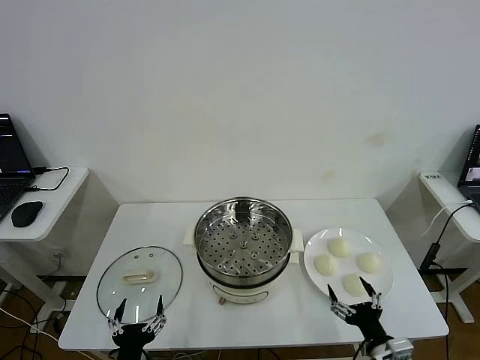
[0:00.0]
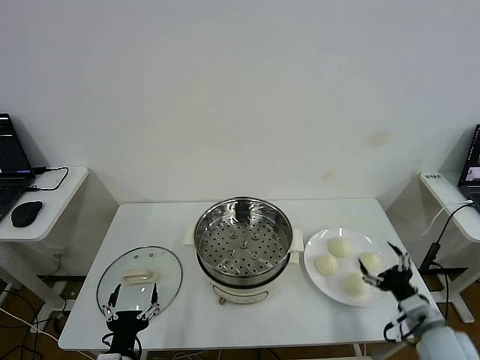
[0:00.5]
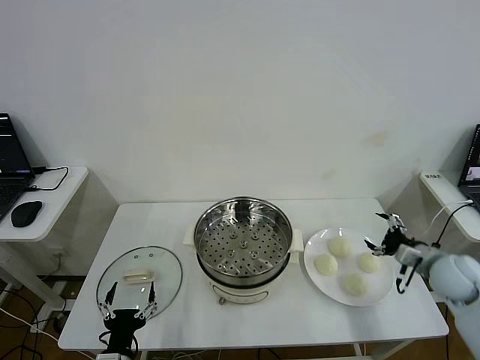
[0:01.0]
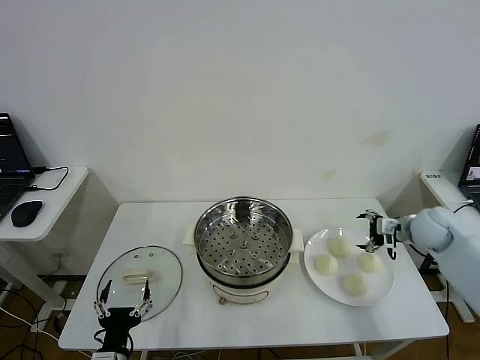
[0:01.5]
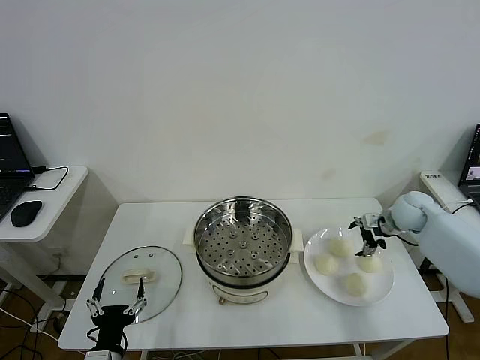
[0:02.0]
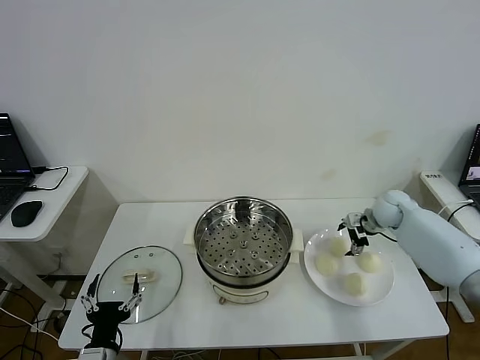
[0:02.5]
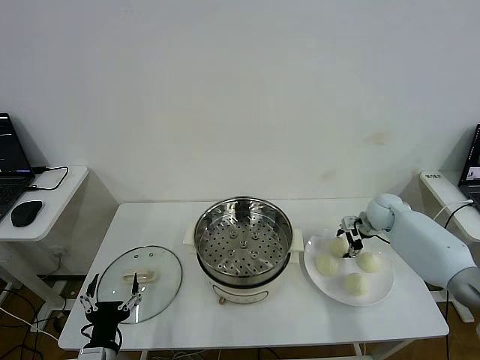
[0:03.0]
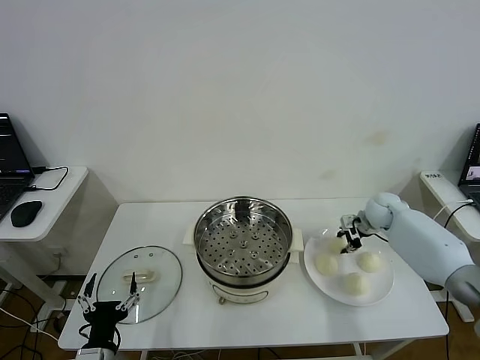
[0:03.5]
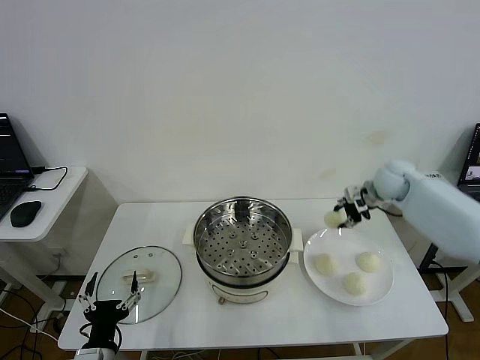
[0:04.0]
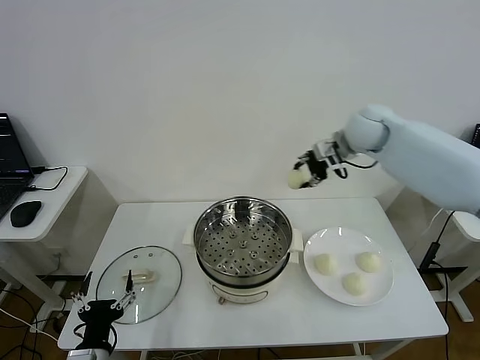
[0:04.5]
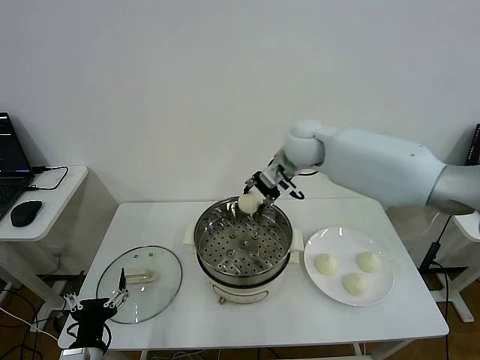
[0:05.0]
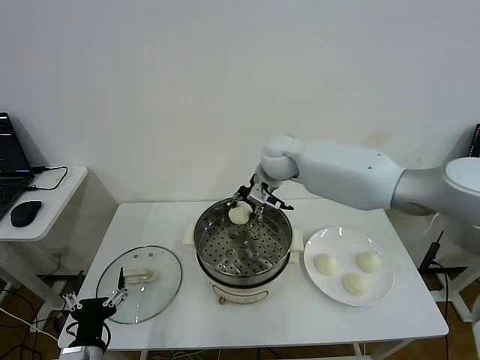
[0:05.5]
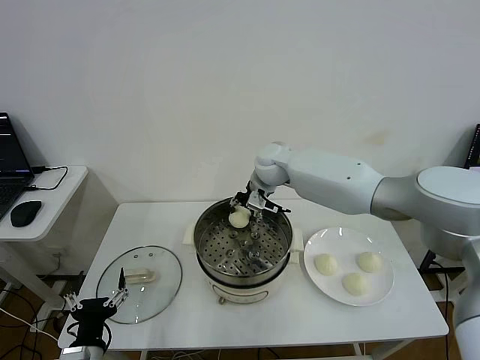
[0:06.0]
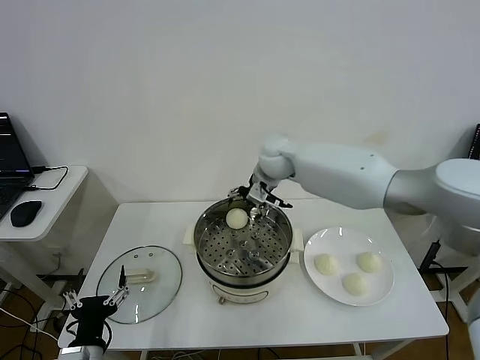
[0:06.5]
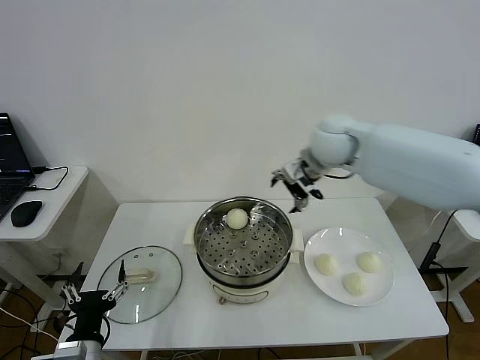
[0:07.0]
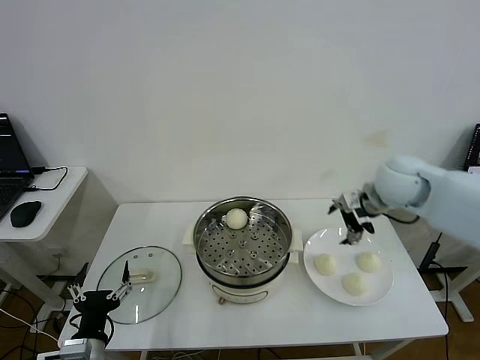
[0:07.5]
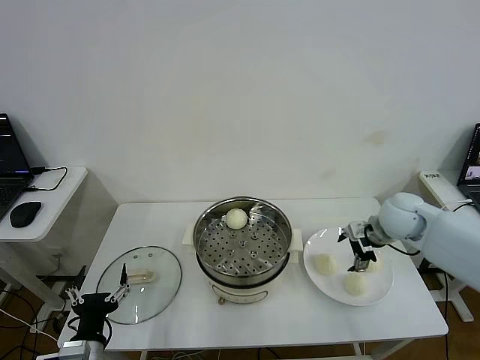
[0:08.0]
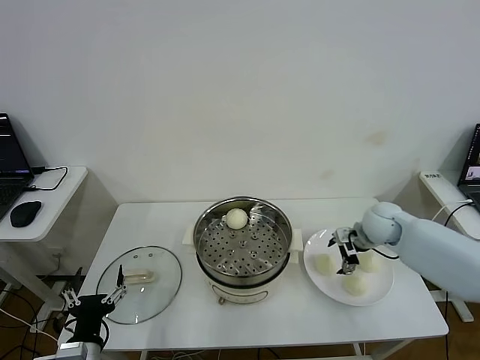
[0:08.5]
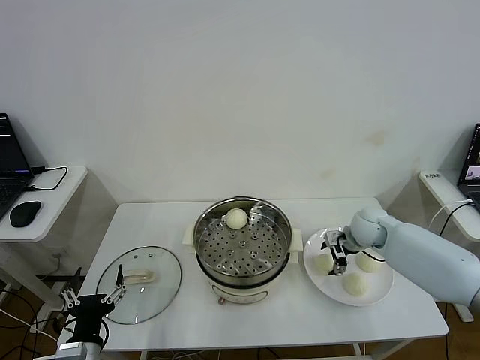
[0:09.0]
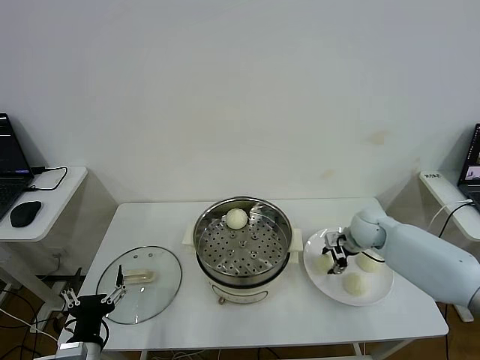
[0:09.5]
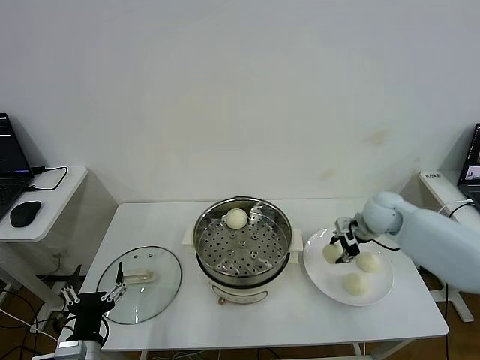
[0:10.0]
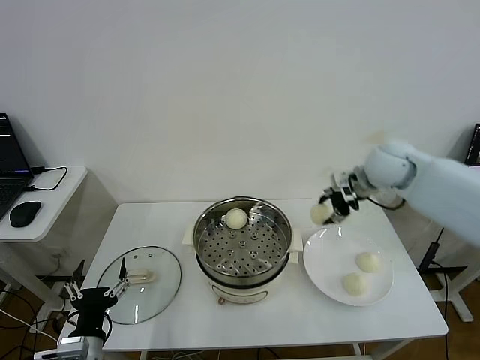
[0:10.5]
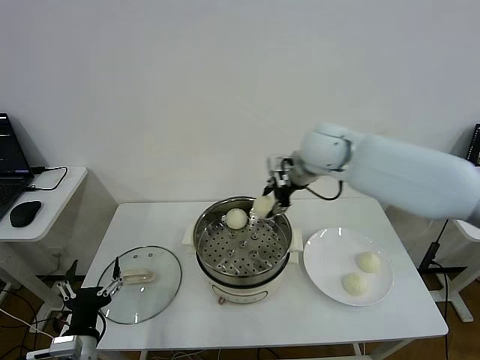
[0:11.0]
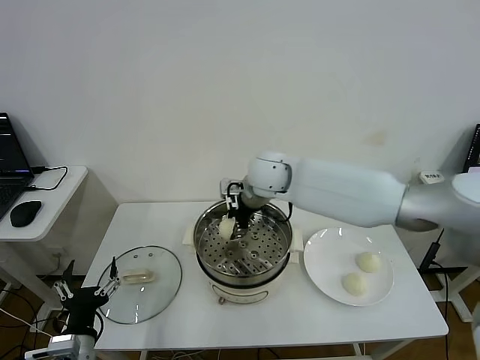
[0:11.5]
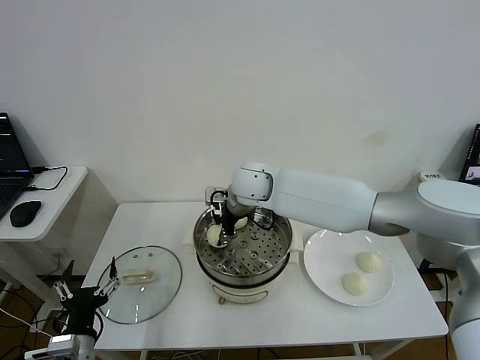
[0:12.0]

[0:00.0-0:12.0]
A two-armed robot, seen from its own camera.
Step, 0.0 to 3.0 s: Grasp the baozi in the plate with right gripper.
Step, 3.5 to 6.0 s: Place the baozi on the steamer with right gripper.
Step, 6.5 to 9.0 s: Grasp the baozi in the plate with right gripper.
2.0 to 4.0 s: The right gripper moves upward and to the left, about 15 cm, and closes.
4.0 to 6.0 s: The right gripper shifts approximately 30 cm to the left, and opens.
6.0 to 8.0 s: The right gripper goes some 30 cm to the right and backward, and opens up.
8.0 to 10.0 s: The right gripper reaches some 5 cm downward, then returns, and closes.
10.0 to 12.0 s: The right gripper moves to the left, some 30 cm.

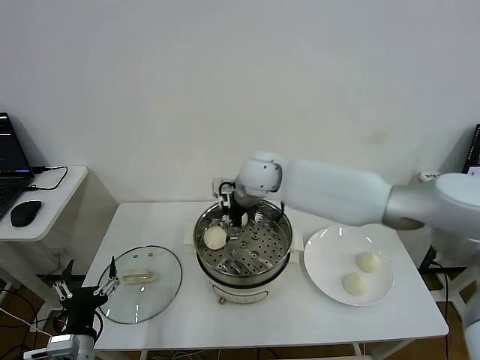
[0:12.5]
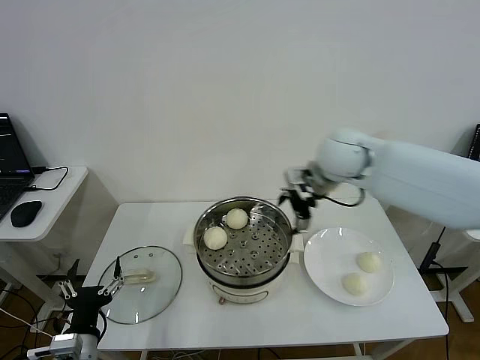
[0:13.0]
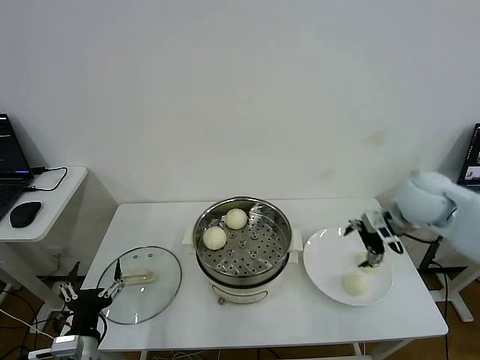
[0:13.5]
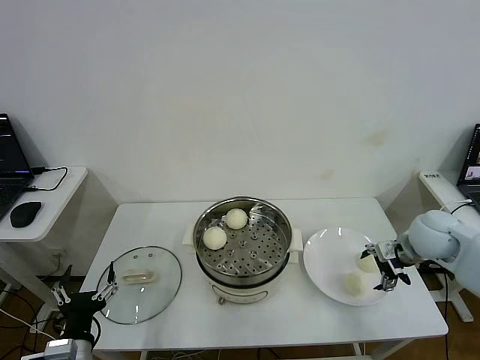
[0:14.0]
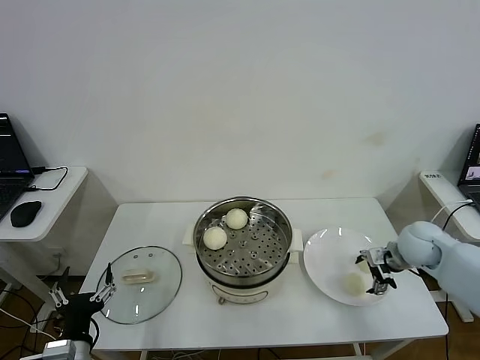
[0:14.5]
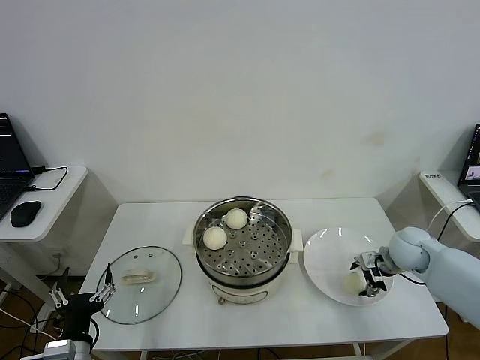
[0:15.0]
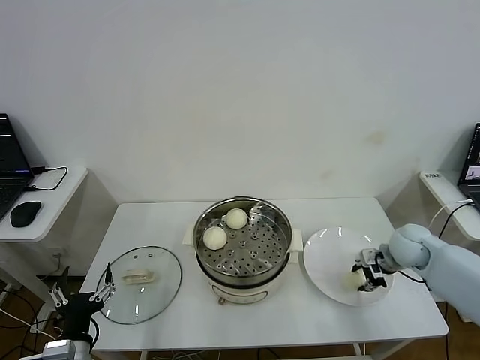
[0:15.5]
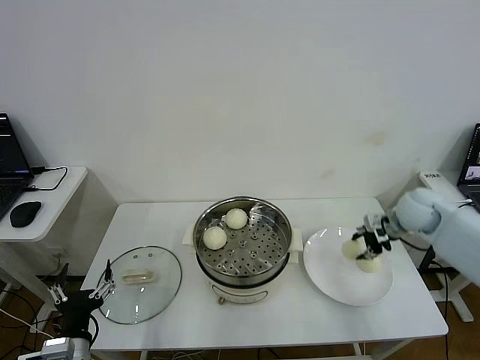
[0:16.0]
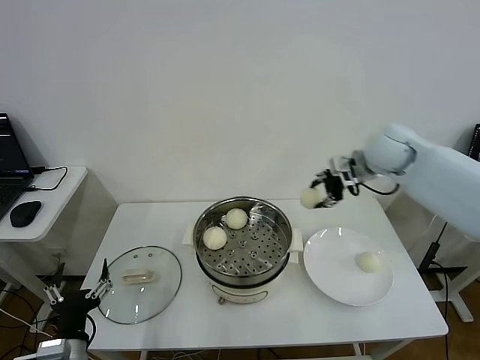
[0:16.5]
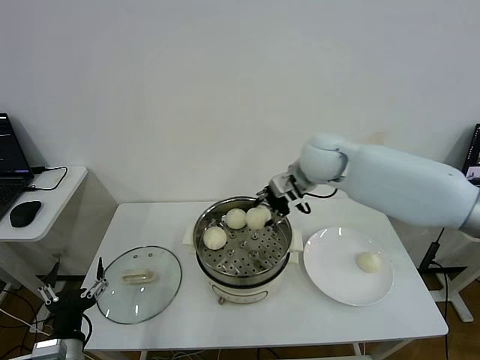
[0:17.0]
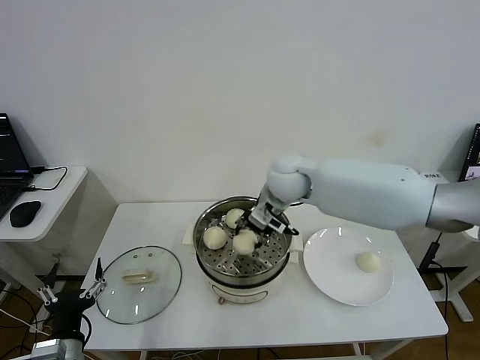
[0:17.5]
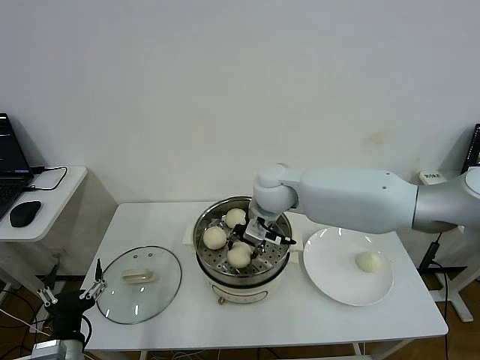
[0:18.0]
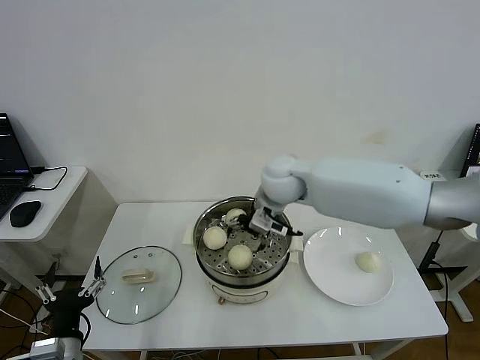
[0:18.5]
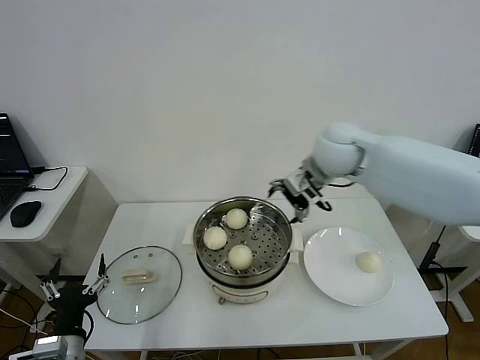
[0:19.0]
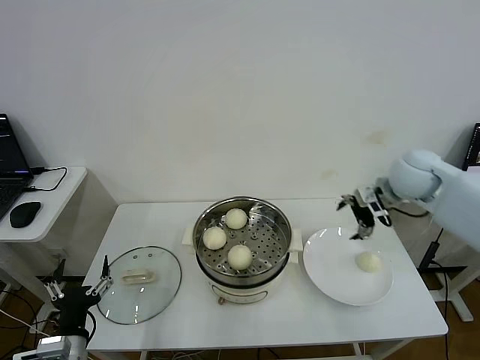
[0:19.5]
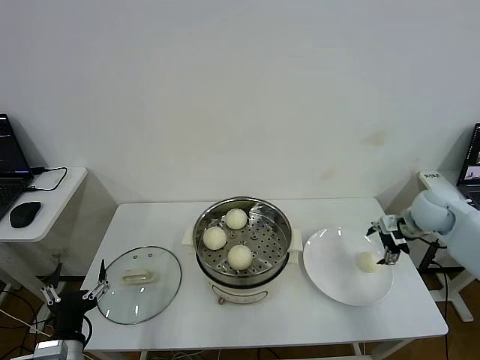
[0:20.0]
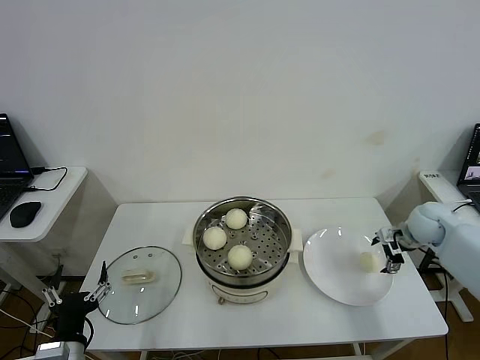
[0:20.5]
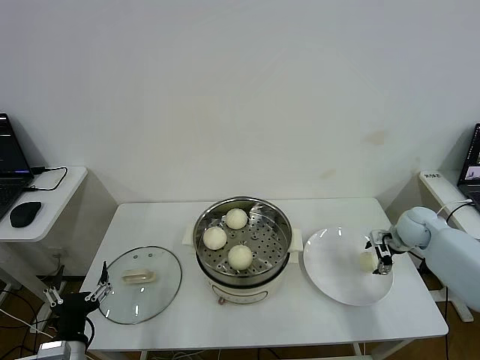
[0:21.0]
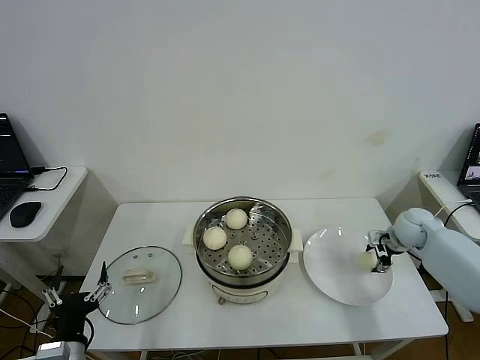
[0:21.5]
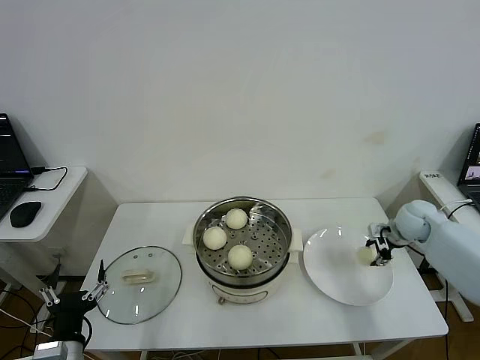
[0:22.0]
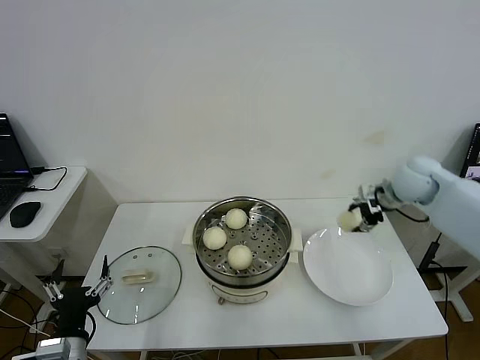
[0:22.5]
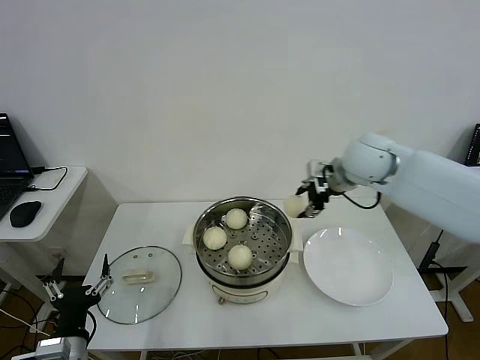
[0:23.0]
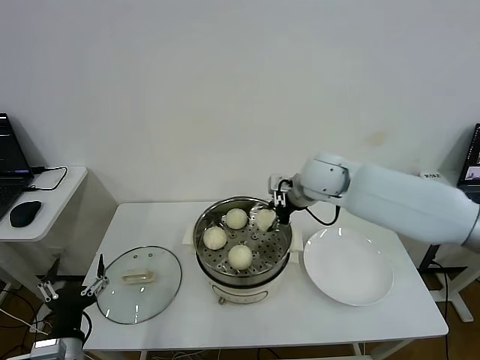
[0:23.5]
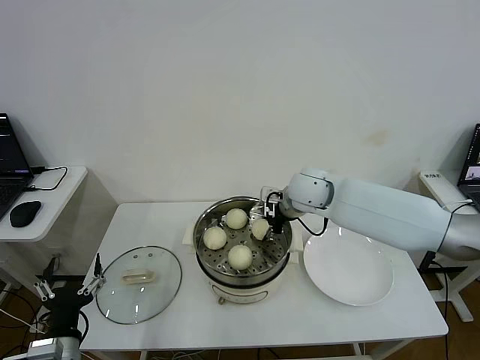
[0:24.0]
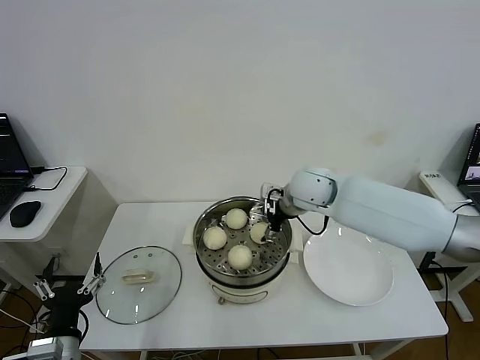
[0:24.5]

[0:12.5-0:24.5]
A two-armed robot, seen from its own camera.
Step, 12.5 to 15.0 s: Grasp the baozi in the plate with right gripper.
Step, 15.5 to 18.0 s: Place the baozi on the steamer with right gripper.
Step, 18.5 to 21.5 s: Grasp the baozi in the plate with right gripper.
Step, 22.0 to 24.5 s: Place the baozi on the steamer with right gripper.
12.5 to 14.5 s: The right gripper goes about 40 cm to the right and downward.
14.5 to 16.5 s: The right gripper heads upward, to the left and forward, covering approximately 25 cm, and closes.
16.5 to 18.5 s: The right gripper travels to the left by approximately 20 cm, and opens up.
18.5 to 20.5 s: The right gripper heads to the right, covering approximately 35 cm.
20.5 to 22.5 s: The right gripper heads upward and to the left, covering some 15 cm, and closes its fingers.
22.5 to 24.5 s: The right gripper moves to the left, about 20 cm, and opens up.

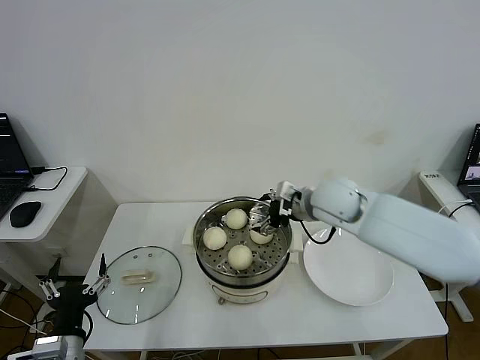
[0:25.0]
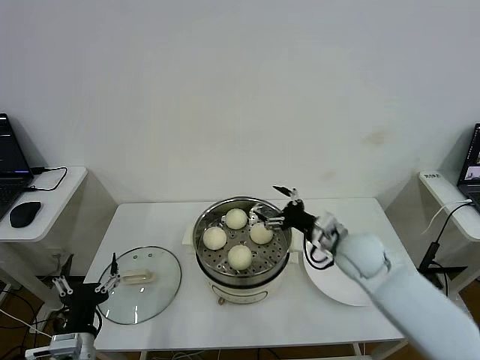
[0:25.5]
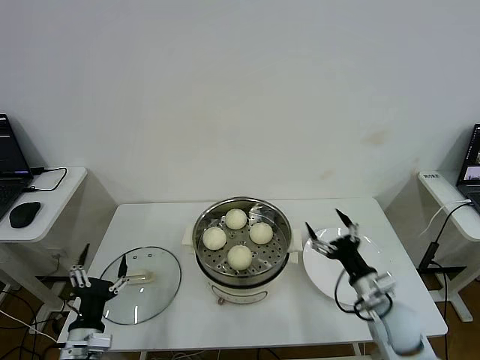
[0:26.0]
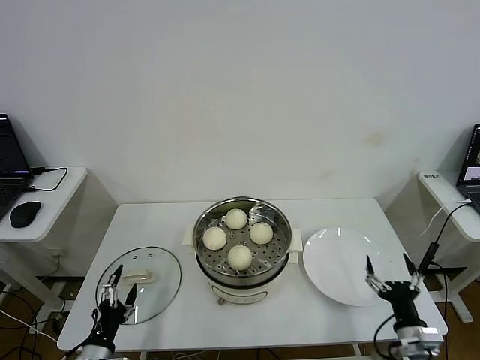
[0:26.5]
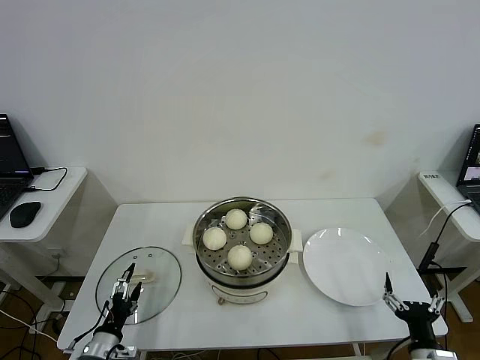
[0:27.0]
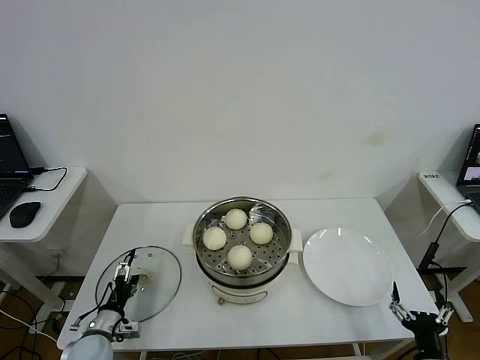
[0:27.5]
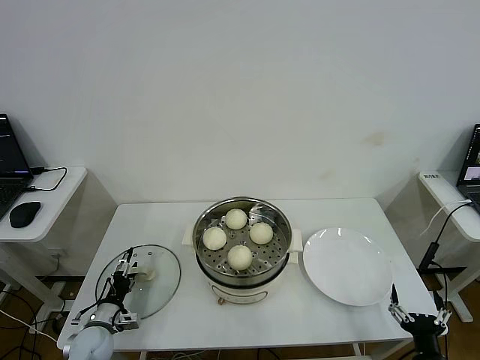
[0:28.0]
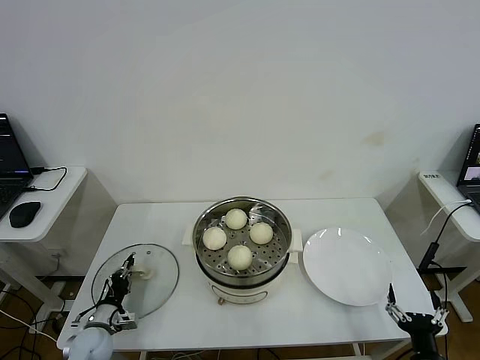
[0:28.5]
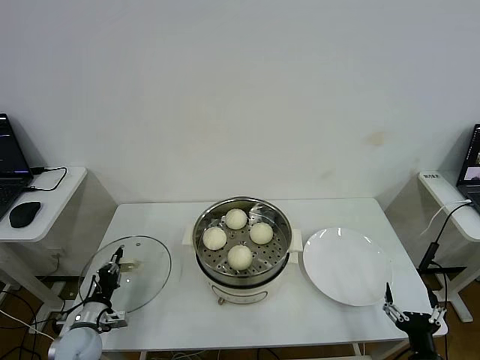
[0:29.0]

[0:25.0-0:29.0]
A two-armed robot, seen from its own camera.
Step, 25.0 to 28.5 s: Grasp the pot lid with left gripper.
25.0 to 27.0 s: The right gripper travels backward, downward and to the right by approximately 40 cm. Meanwhile the left gripper moves downward, some 15 cm.
27.0 to 29.0 s: The left gripper shifts roughly 10 cm forward, and closes up.
